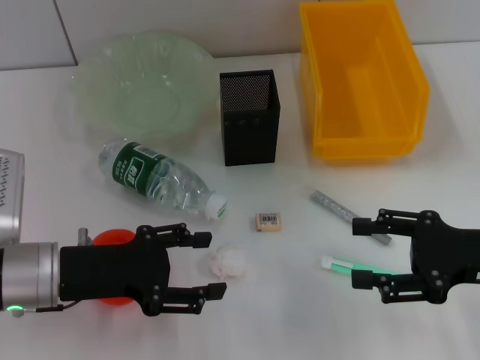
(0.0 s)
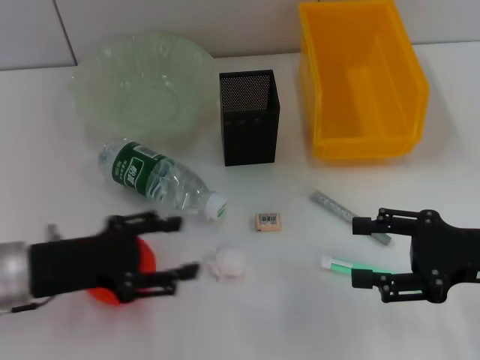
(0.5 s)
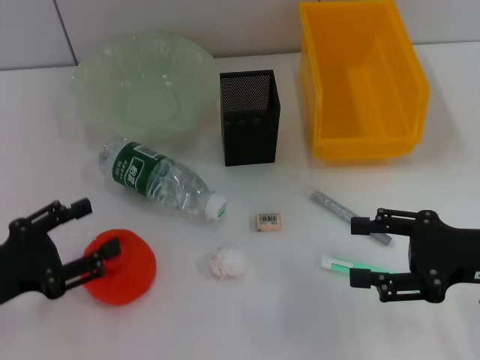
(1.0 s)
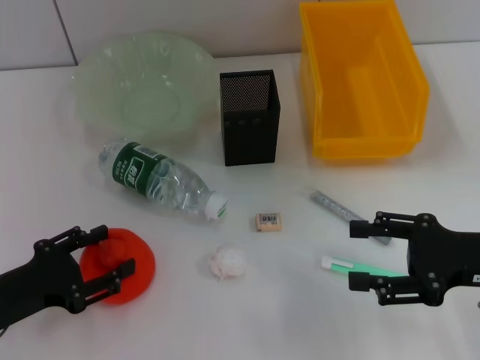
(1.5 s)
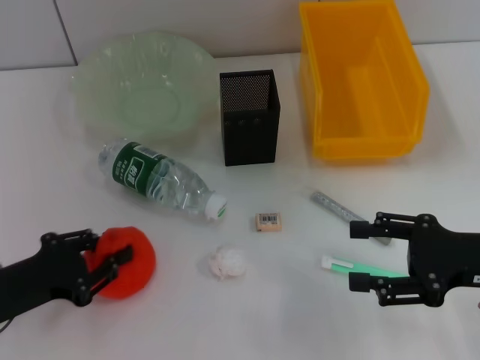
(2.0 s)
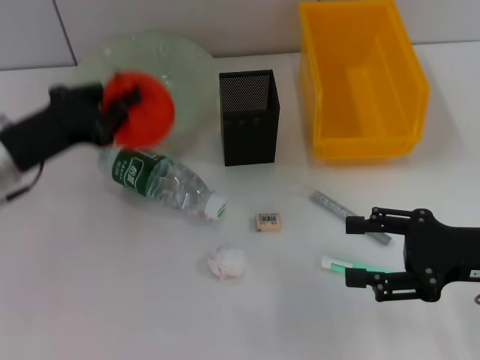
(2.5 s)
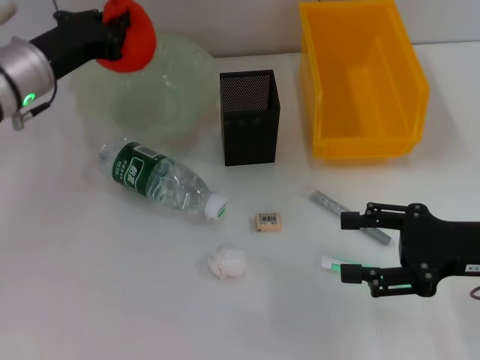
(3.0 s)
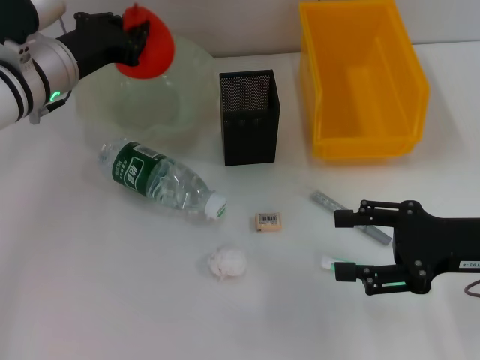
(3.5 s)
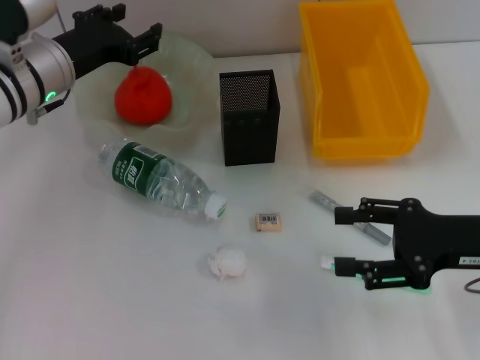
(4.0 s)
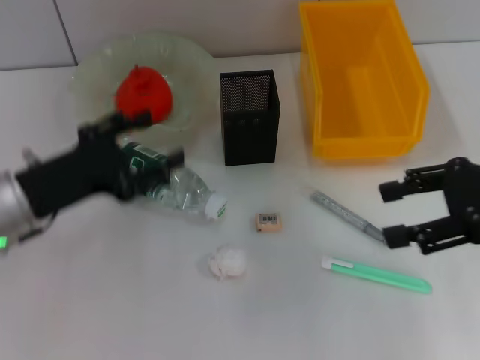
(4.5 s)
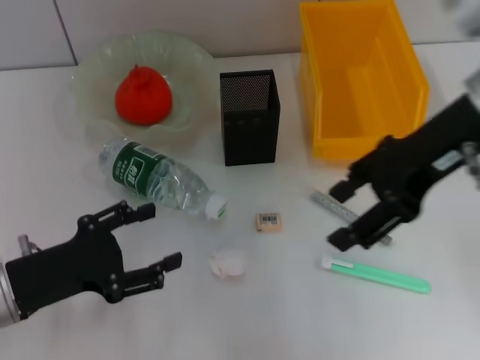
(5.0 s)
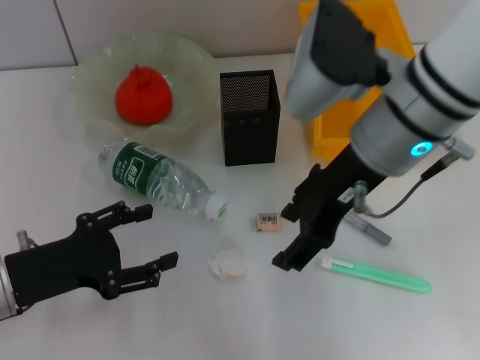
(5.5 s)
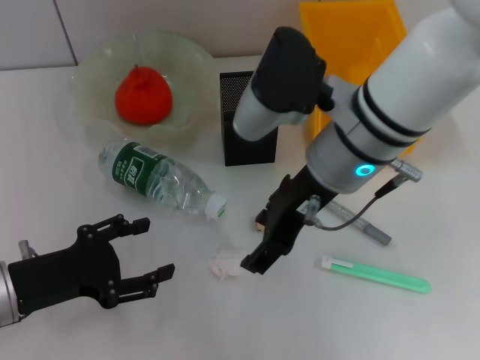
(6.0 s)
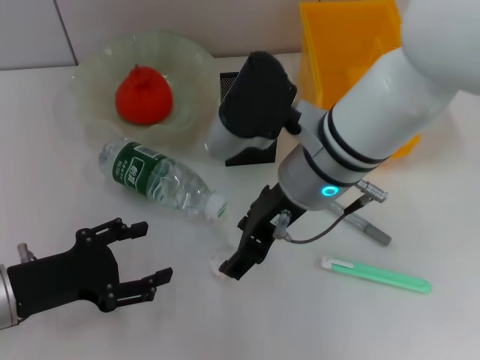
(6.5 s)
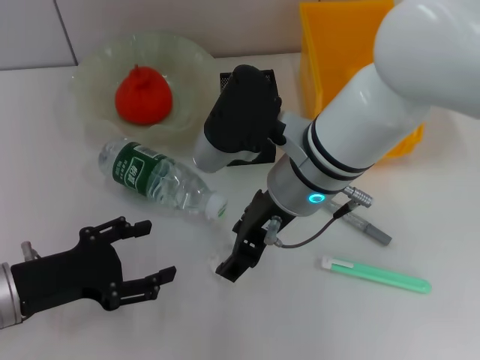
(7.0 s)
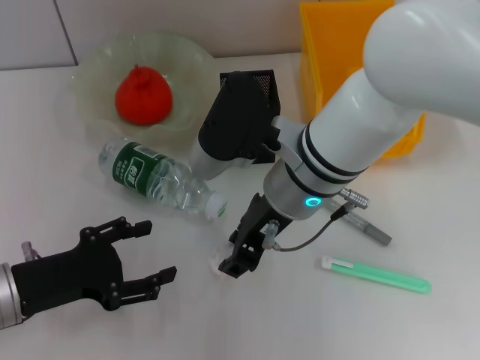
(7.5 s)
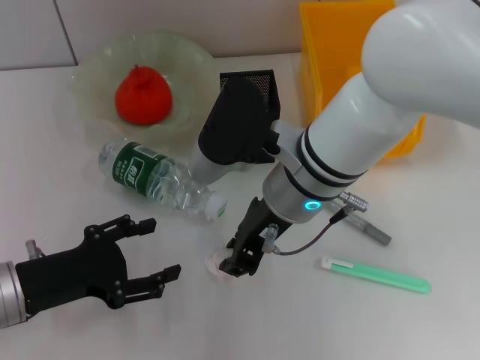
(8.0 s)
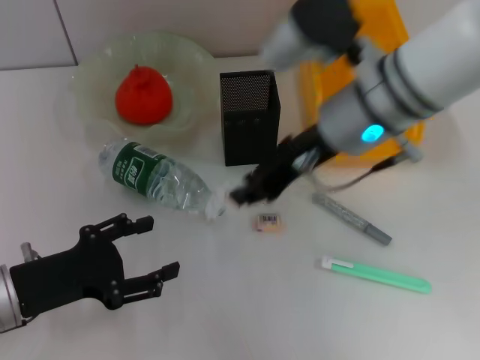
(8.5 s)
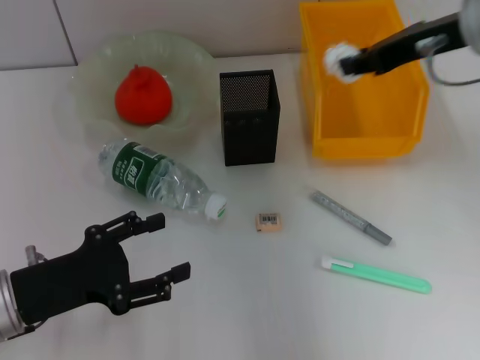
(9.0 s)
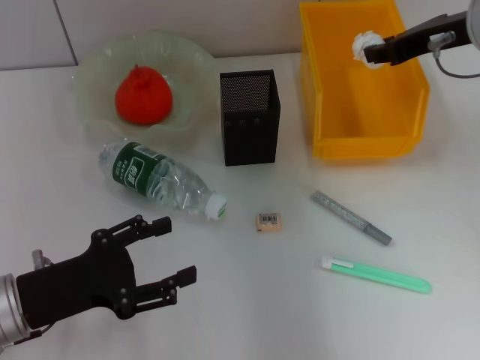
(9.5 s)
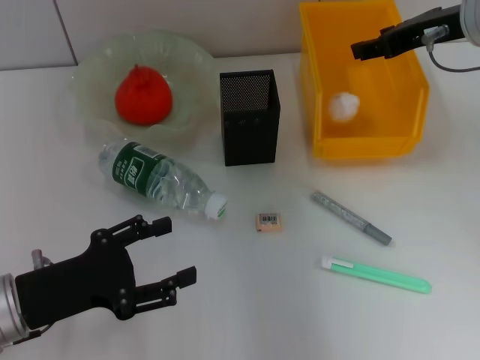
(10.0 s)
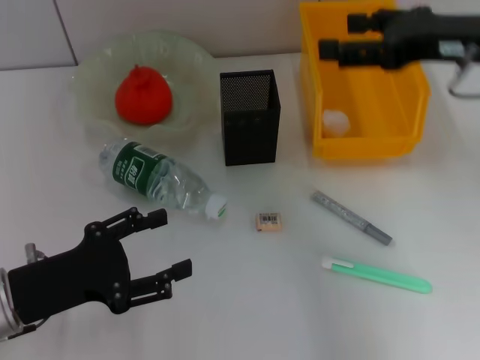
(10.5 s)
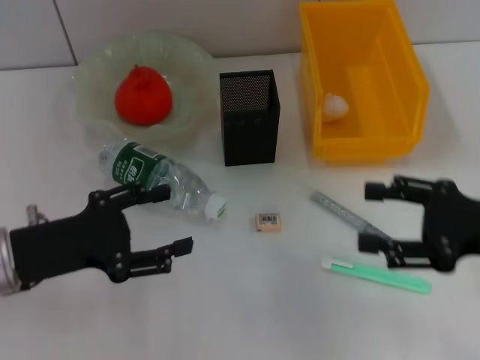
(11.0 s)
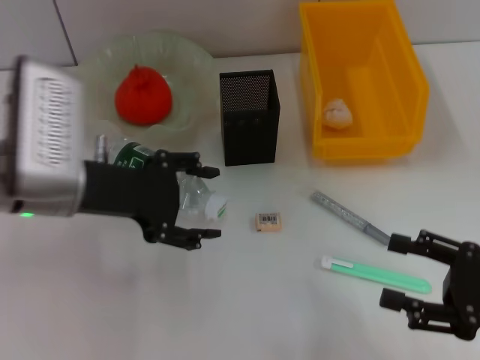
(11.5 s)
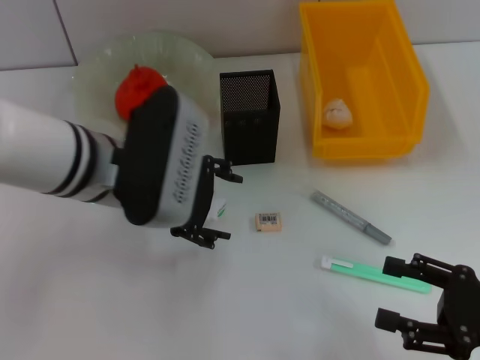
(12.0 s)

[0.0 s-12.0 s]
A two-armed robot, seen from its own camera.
Step, 0.0 to 1.5 s: Grab the orange with the left hand.
Step, 2.0 to 3.5 s: Place the orange into the fruit bowl with the left hand.
Step, 4.0 to 7.5 s: Grab the paper ball with the right hand.
Step, 8.0 to 11.0 s: Place the paper ball into the trash can with the right hand.
0.0 to 2.0 s: The left gripper travels to the left by some 5 cm, and closes up.
2.0 to 4.0 s: The left gripper shifts about 25 cm forward, to the right and upward, and closes, then opens again.
4.0 to 6.0 s: The left gripper moves backward and downward, some 20 cm, and opens. The right gripper is displaced to the left, upward and forward by roughly 20 cm.
6.0 to 8.0 s: The right gripper moves some 5 cm, and closes its fingers.
8.0 to 10.0 s: The right gripper travels to the right and forward by some 20 cm.
10.0 to 12.0 s: The right gripper shifts approximately 30 cm backward and downward, and opens its fingers. The left gripper shifts roughly 20 cm to the right, forward and upward.

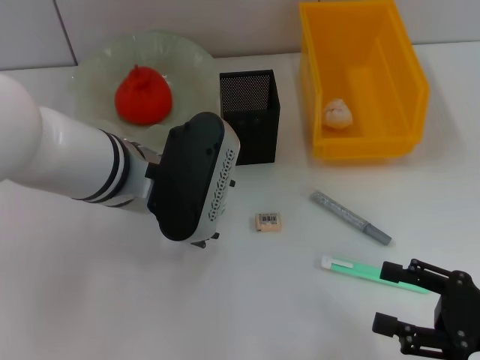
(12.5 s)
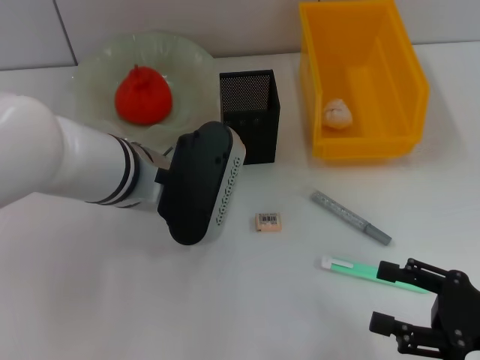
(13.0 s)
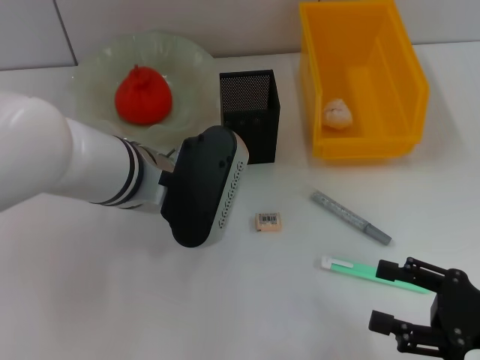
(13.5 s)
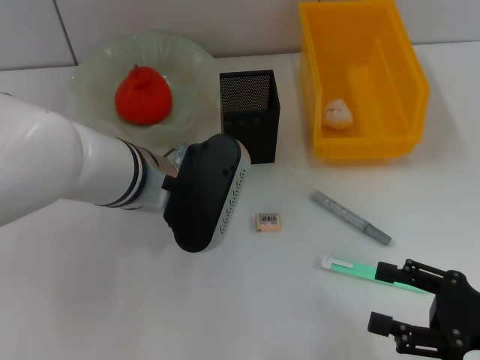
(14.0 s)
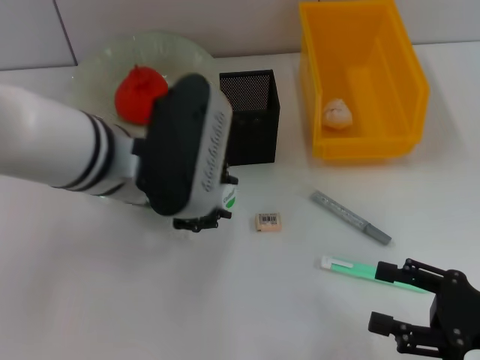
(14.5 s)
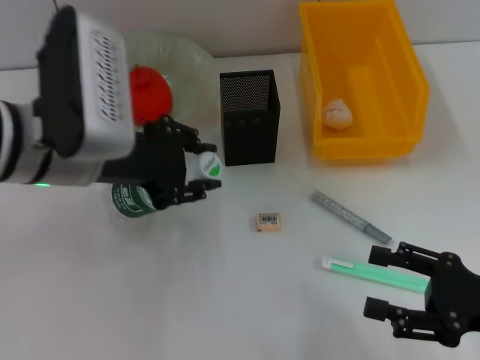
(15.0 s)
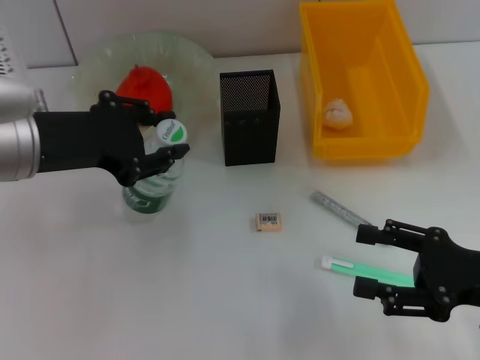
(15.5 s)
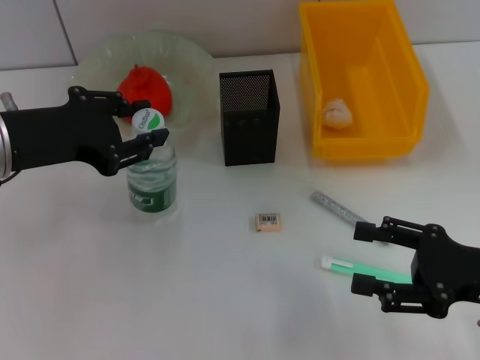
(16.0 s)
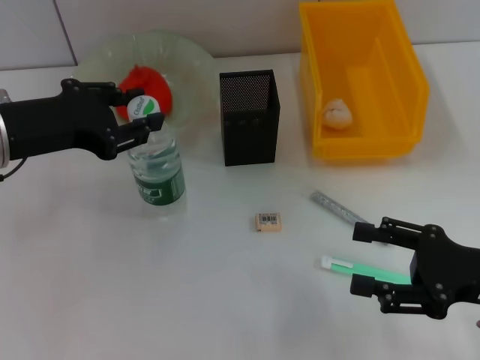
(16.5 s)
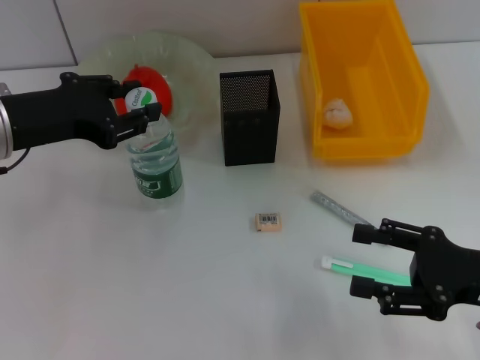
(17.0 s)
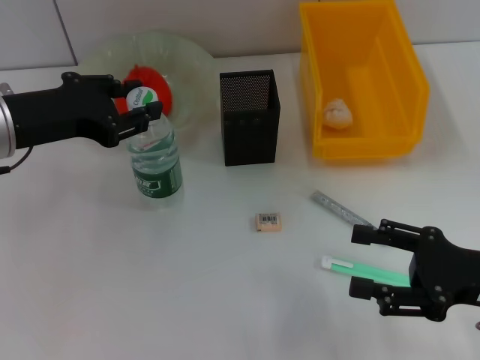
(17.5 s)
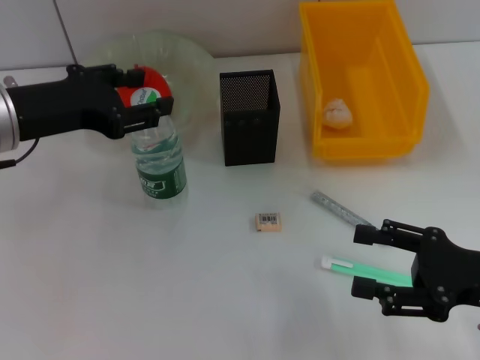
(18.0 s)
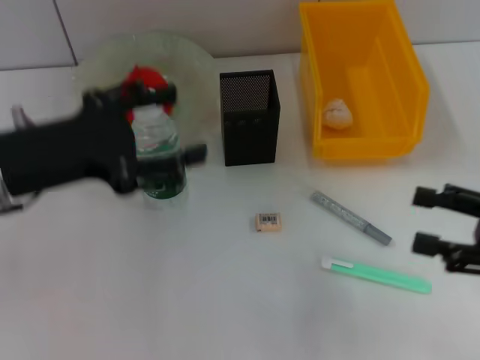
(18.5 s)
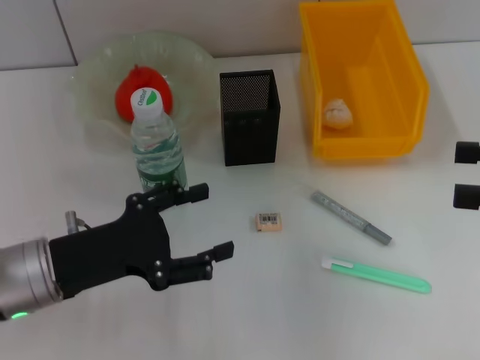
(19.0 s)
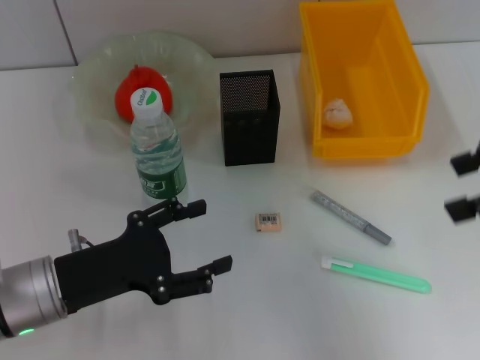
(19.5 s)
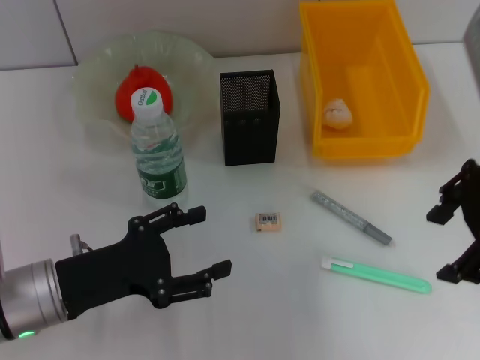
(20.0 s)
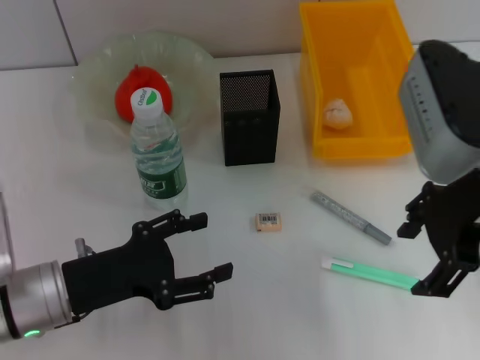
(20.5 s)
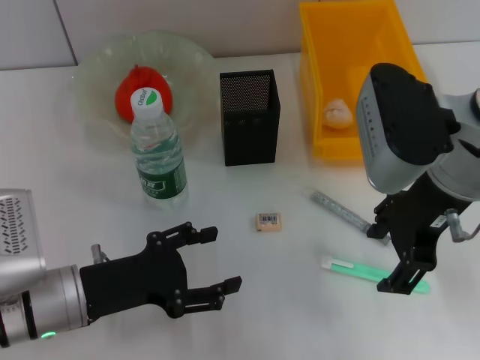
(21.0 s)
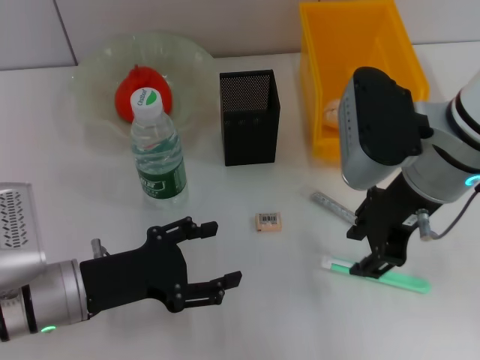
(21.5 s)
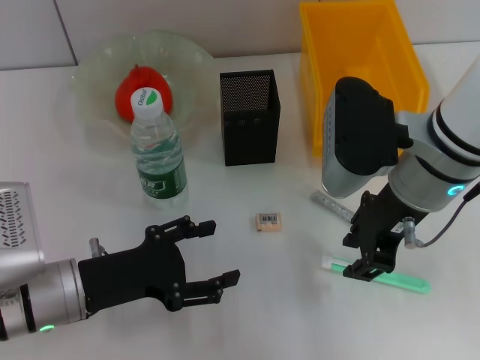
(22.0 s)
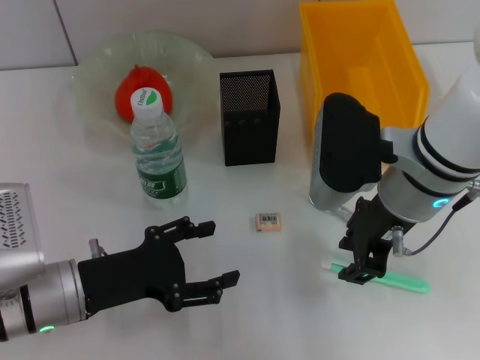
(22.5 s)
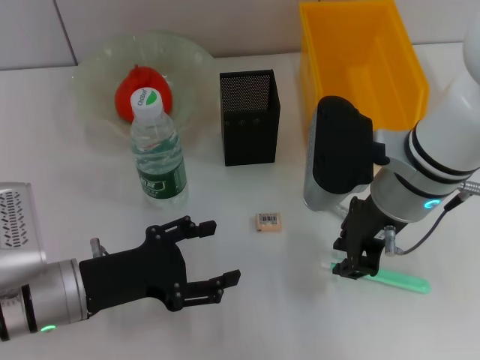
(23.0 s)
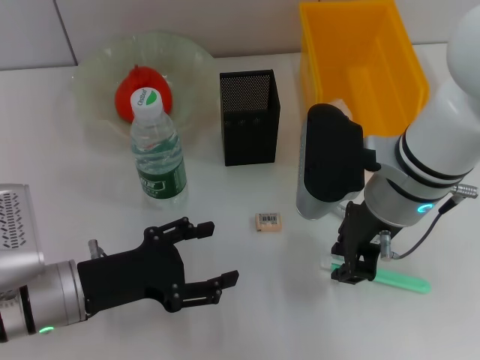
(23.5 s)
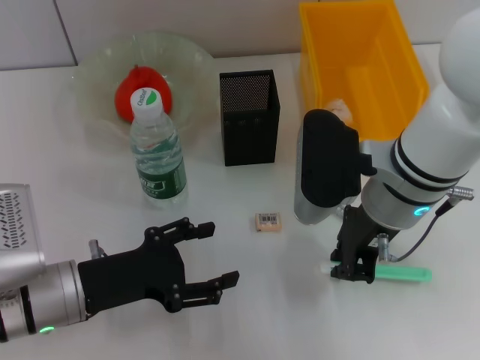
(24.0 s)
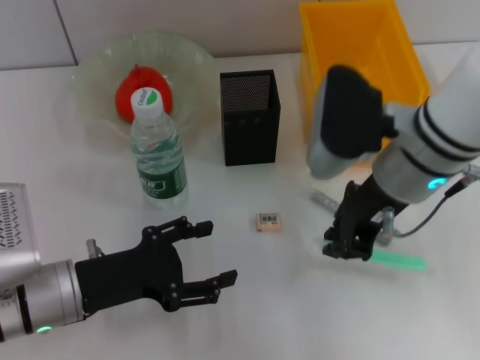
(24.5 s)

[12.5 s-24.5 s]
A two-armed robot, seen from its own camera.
Step, 14.0 to 17.5 s: Place the water bottle on the table with the left hand.
Step, 18.0 to 23.5 s: Grab the blue utility knife with the right hand.
12.5 to 14.5 s: The left gripper closes.
14.5 to 16.5 s: The left gripper heads to the left, covering roughly 15 cm. The right gripper moves approximately 5 cm.
16.5 to 18.5 s: The right gripper moves roughly 5 cm; the left gripper opens up.
18.5 to 20.5 s: The right gripper travels to the left, upward and forward by roughly 20 cm. Meanwhile the left gripper travels downward by about 15 cm.
20.5 to 22.5 s: The right gripper travels downward by approximately 5 cm, and closes its fingers.
22.5 to 24.5 s: The grippers stay close to where they were, moving slightly.

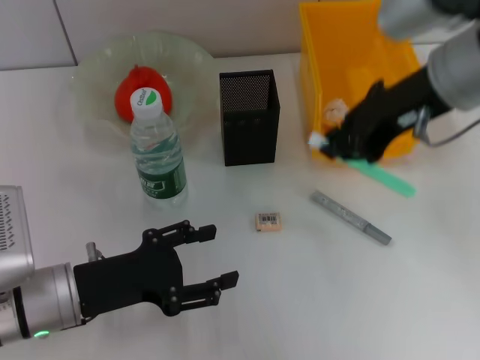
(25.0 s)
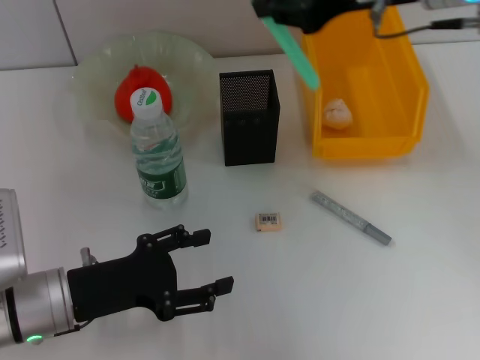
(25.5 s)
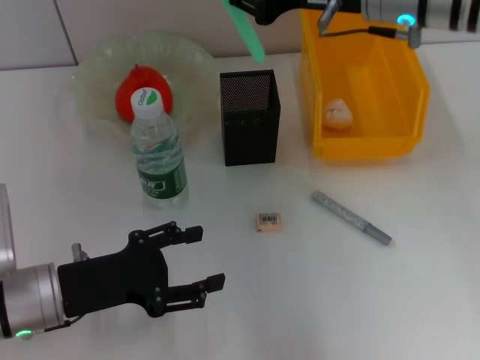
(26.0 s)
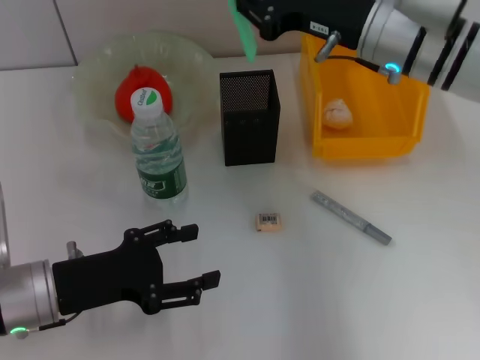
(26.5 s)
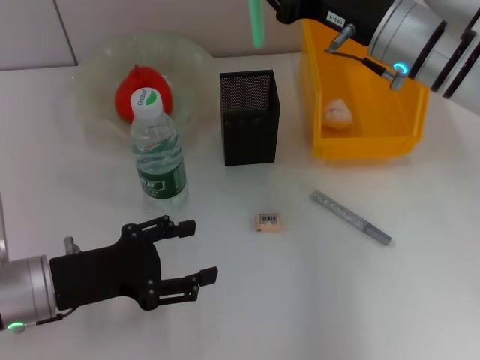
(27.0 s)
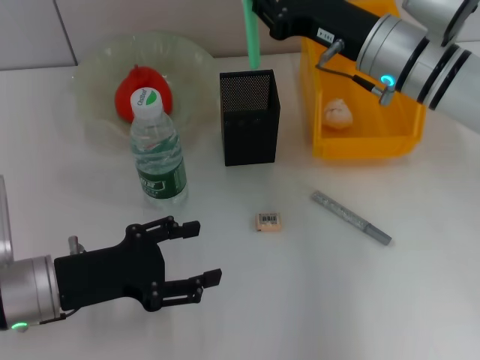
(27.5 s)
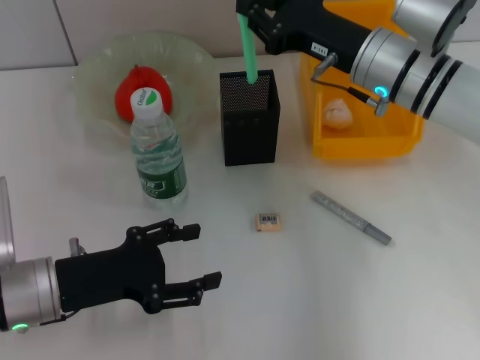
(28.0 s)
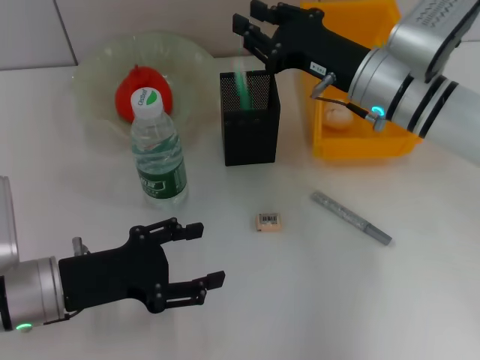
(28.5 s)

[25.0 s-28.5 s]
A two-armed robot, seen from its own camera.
25.0 to 27.0 s: The right gripper goes some 10 cm downward and forward.
27.0 to 28.5 s: The grippers stay close to where they were, moving slightly.
